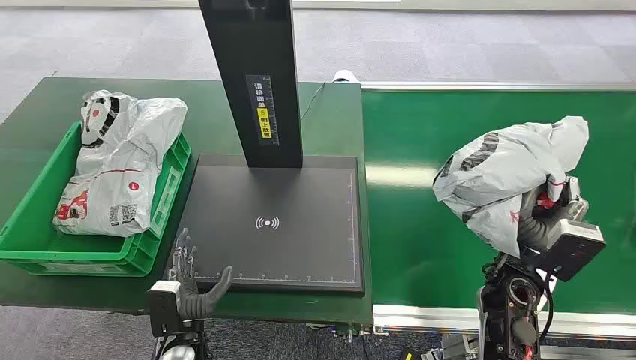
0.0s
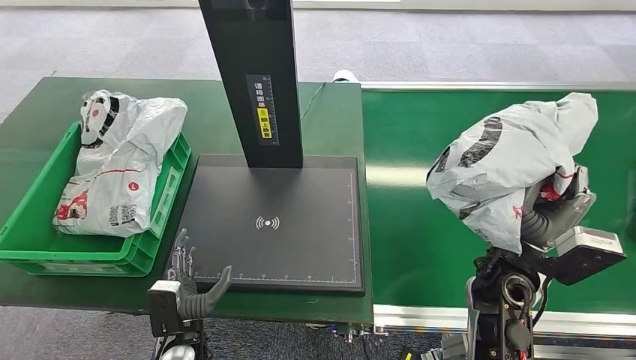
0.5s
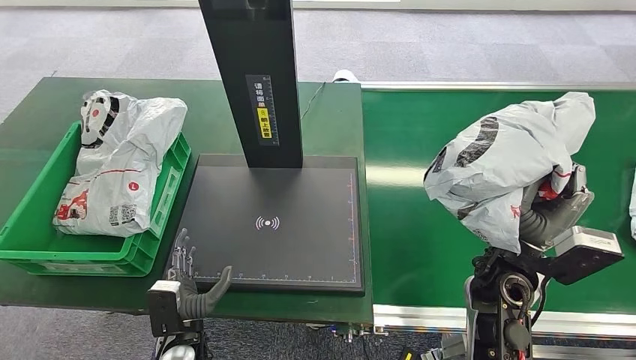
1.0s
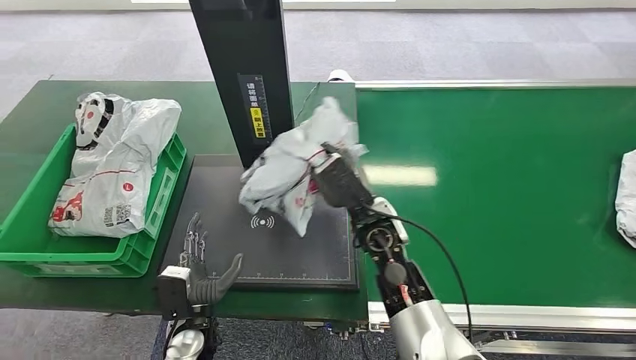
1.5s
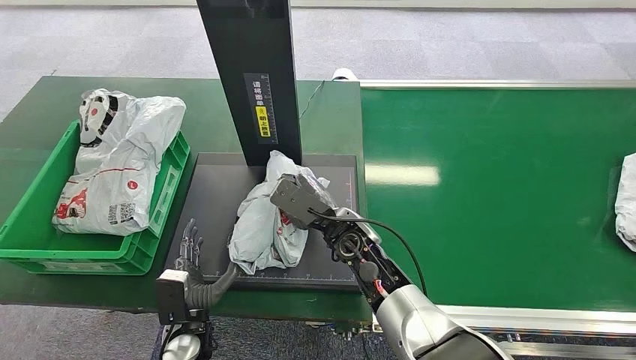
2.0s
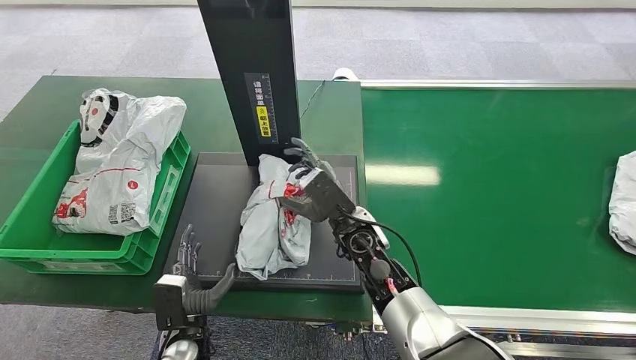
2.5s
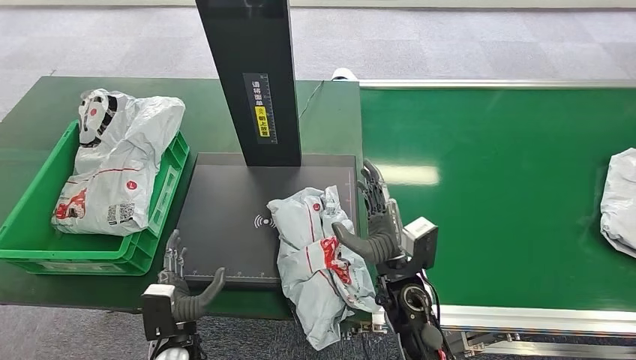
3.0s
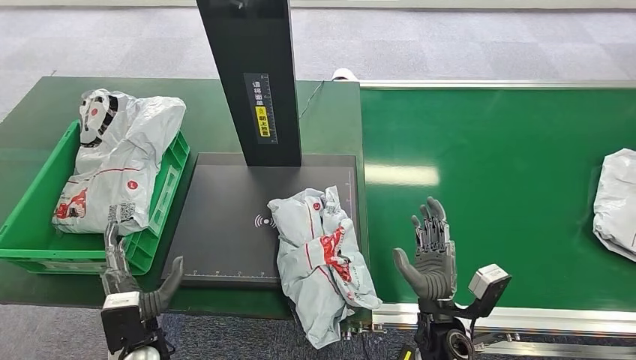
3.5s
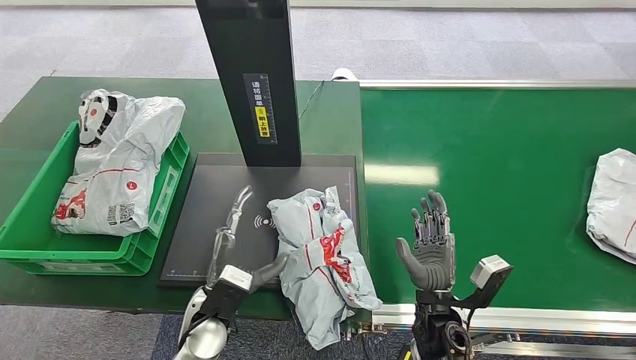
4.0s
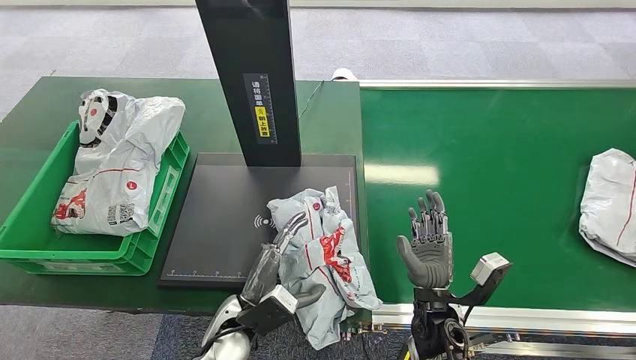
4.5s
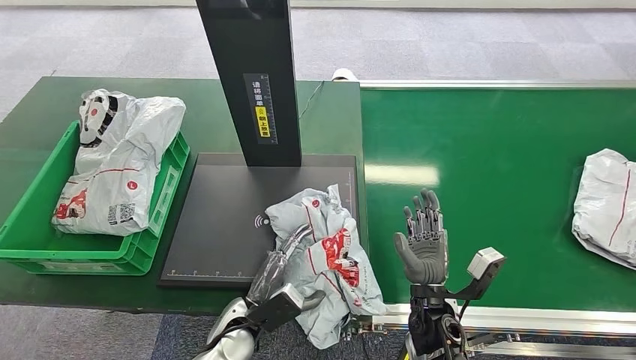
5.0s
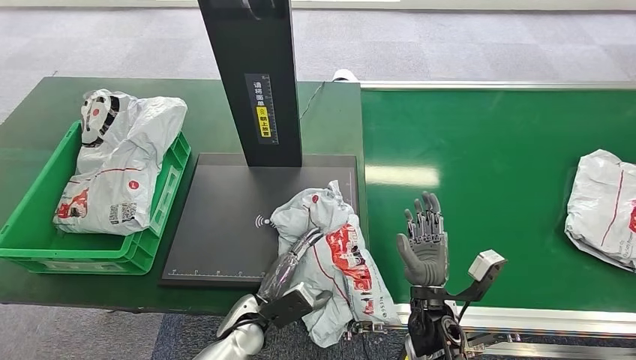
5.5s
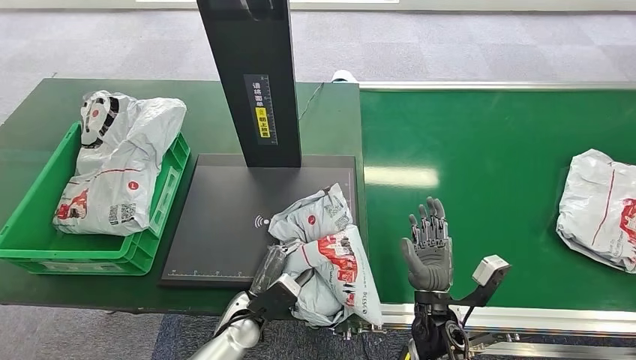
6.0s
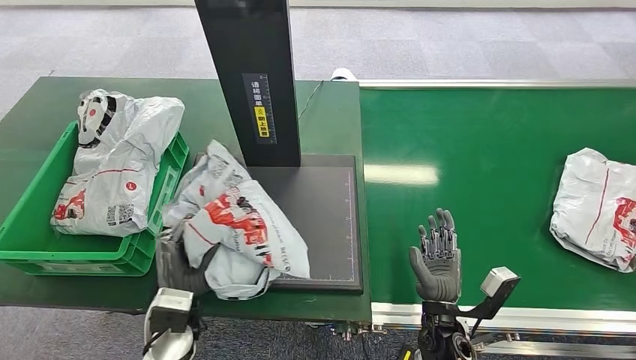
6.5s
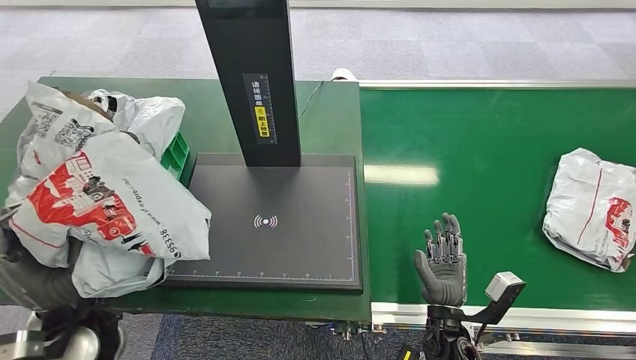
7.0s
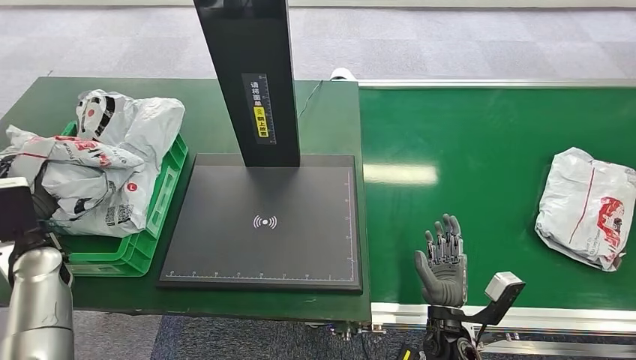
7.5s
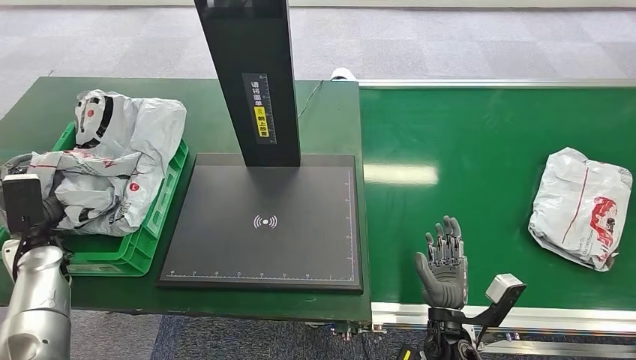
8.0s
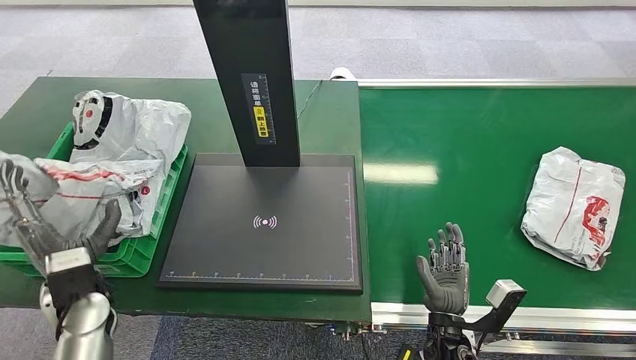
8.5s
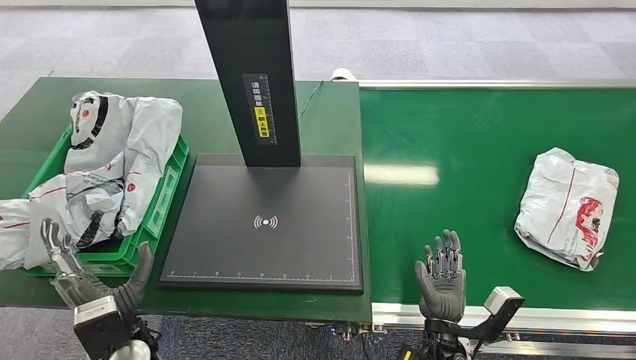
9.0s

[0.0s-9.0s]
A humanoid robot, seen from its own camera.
2.0s to 4.5s: The left hand heads to the right, covering approximately 10 cm, while the right hand goes roughly 20 cm to the right, backward and downward.
